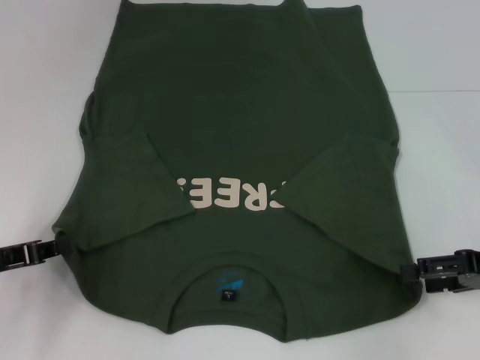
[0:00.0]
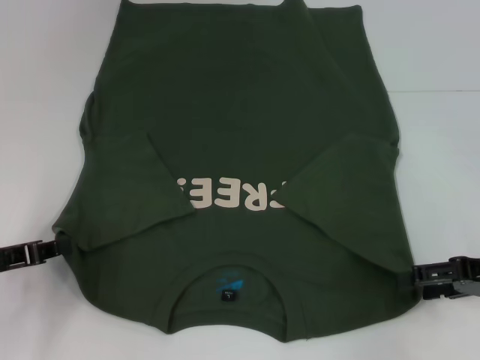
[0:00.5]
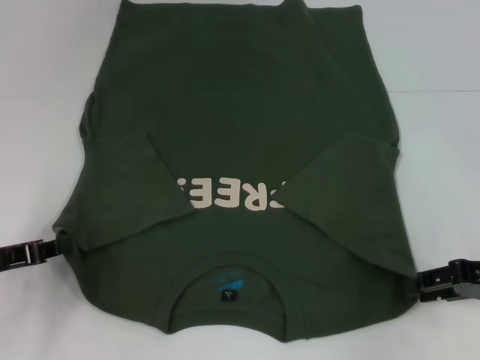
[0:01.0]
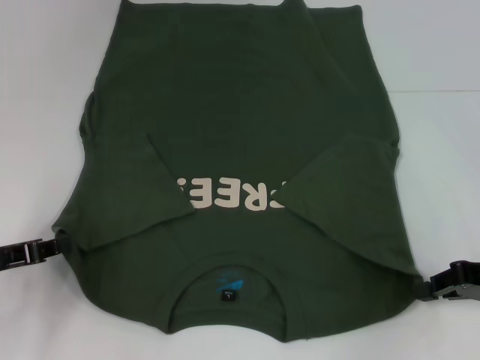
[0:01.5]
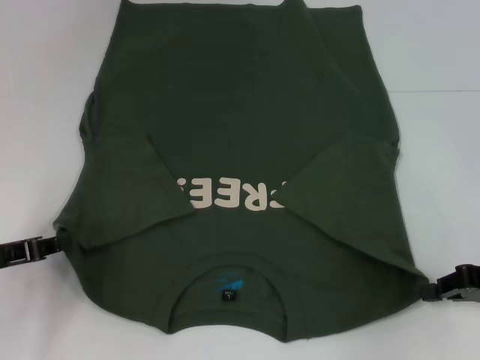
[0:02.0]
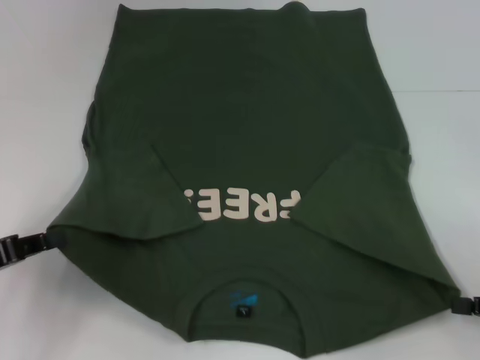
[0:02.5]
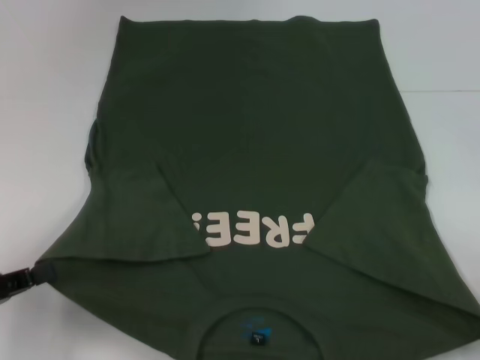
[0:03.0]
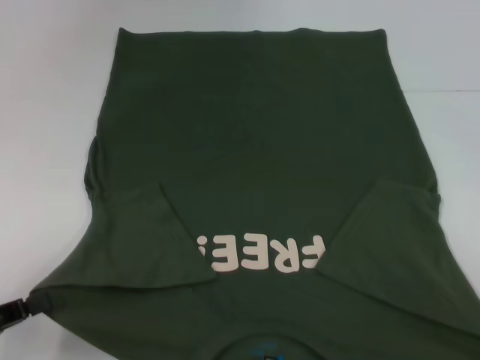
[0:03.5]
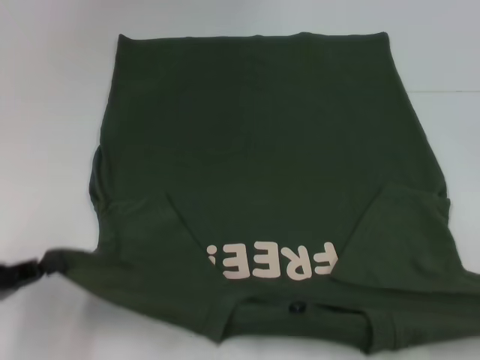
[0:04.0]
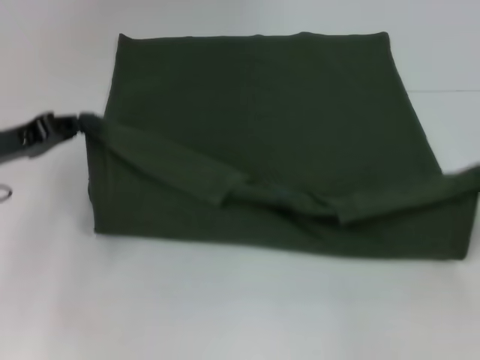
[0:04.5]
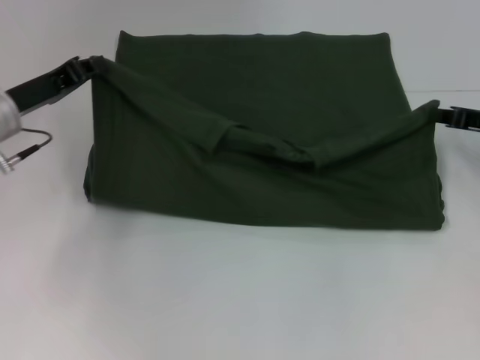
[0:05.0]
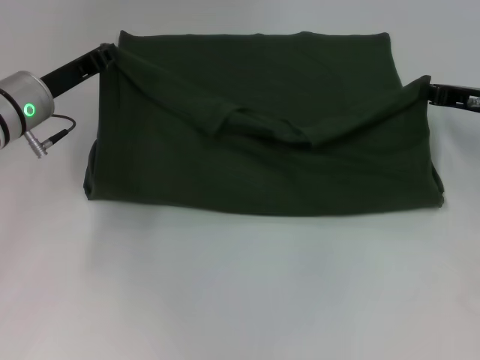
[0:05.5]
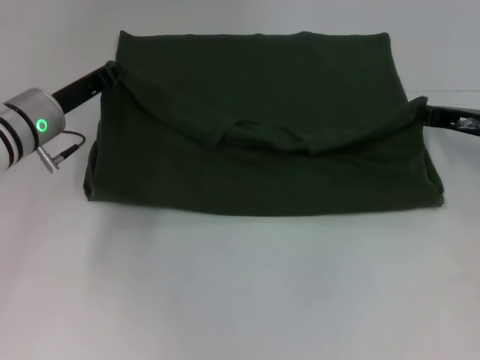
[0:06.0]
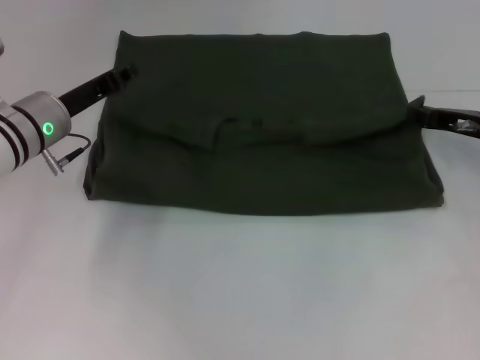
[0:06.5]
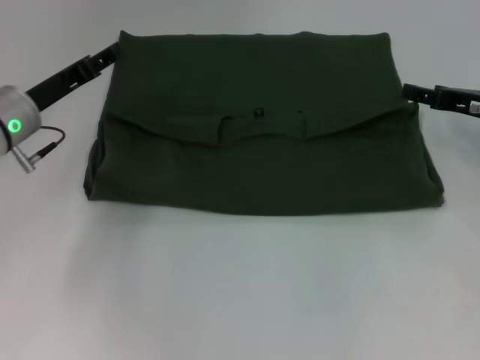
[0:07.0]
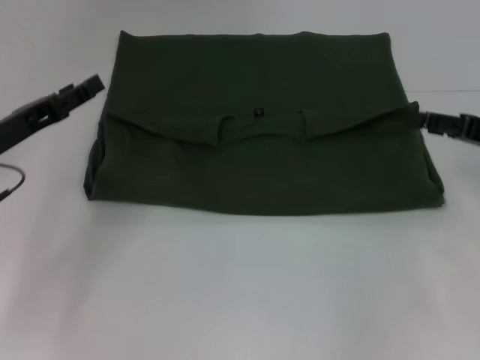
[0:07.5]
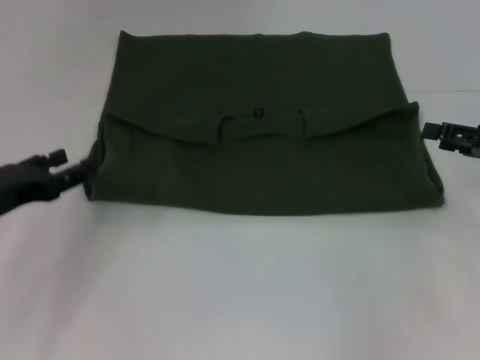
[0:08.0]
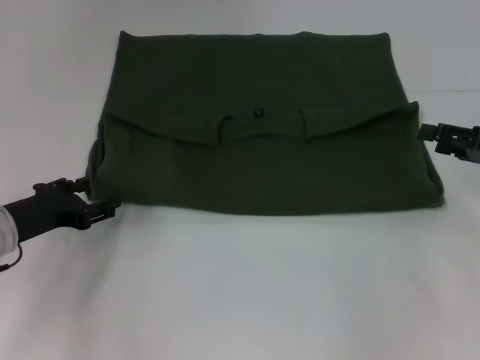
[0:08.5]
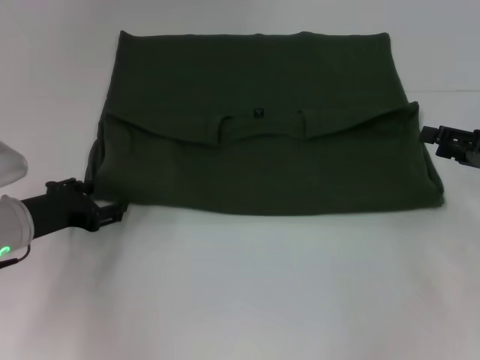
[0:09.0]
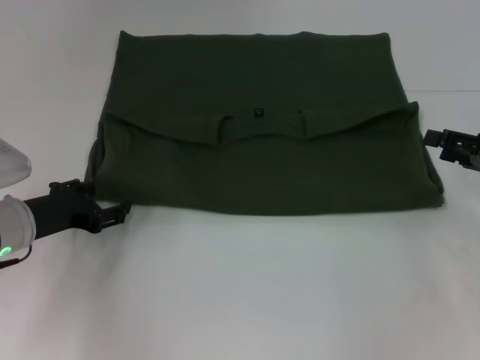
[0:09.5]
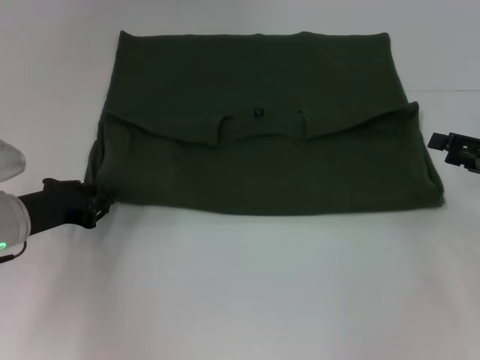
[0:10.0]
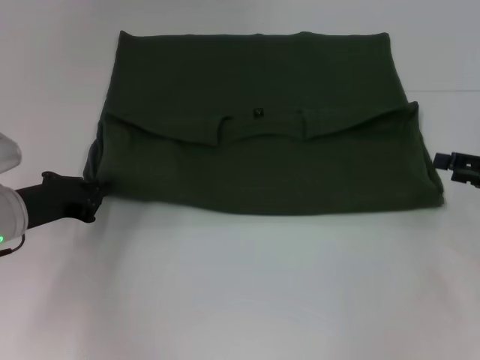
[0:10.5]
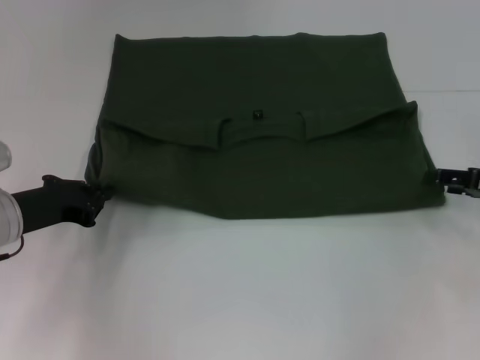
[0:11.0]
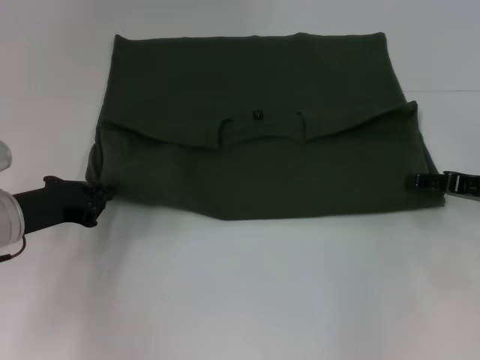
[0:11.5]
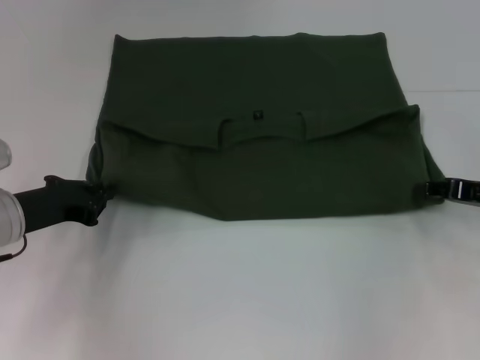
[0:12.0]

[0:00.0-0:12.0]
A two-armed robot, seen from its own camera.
Step, 0:00.0 to 0:02.0: Grab the bottom right corner with your right hand.
Step, 0:02.5 to 0:07.0: Fold the clothes with your left hand.
Step, 0:02.5 to 0:07.0: Fold the clothes with your right hand.
0:00.0 to 0:02.0: The right gripper closes.
0:02.0 to 0:04.0: The right gripper moves backward and to the right, roughly 15 cm. The left gripper goes some 5 cm backward.
0:04.0 to 0:06.0: The left gripper is displaced forward and to the right by approximately 25 cm. The right gripper moves forward and to the left, some 30 cm.
0:06.0 to 0:08.0: The right gripper goes approximately 10 cm backward and to the right, and opens up. The left gripper moves backward and to the left, approximately 15 cm, and opens.
0:08.0 to 0:10.0: The left gripper ends up approximately 5 cm from where it was, and closes.
0:10.0 to 0:12.0: The left gripper closes.

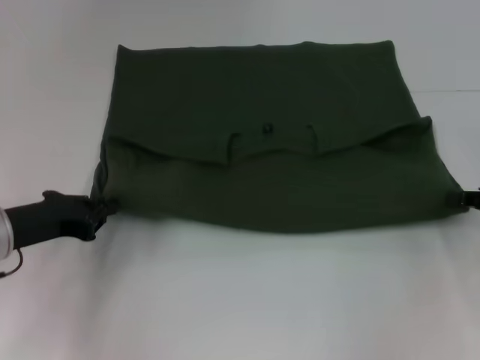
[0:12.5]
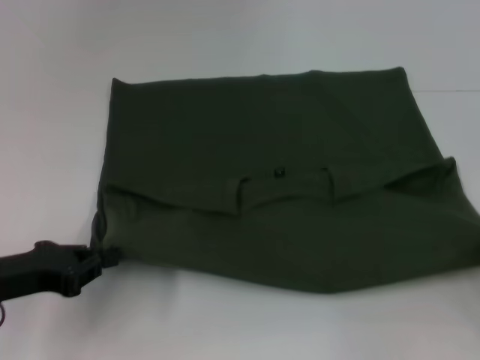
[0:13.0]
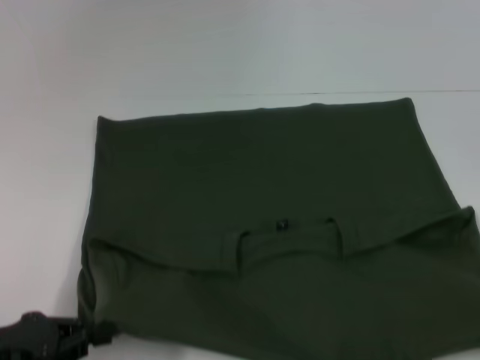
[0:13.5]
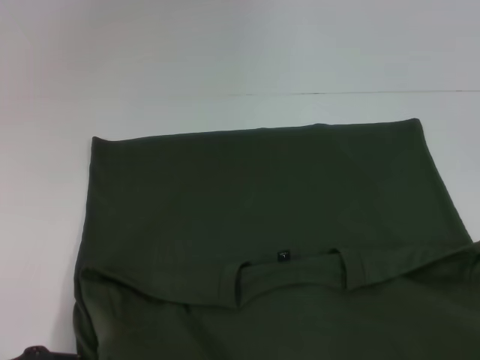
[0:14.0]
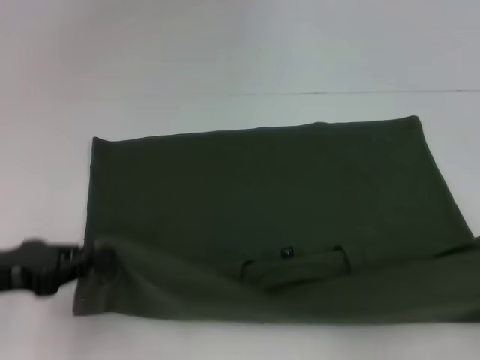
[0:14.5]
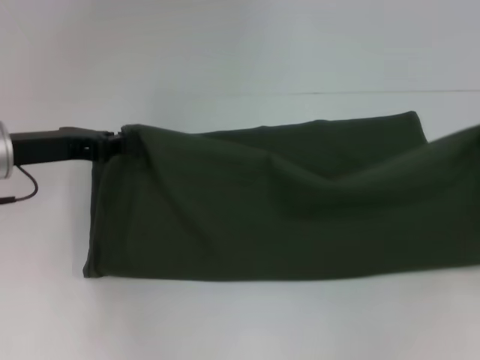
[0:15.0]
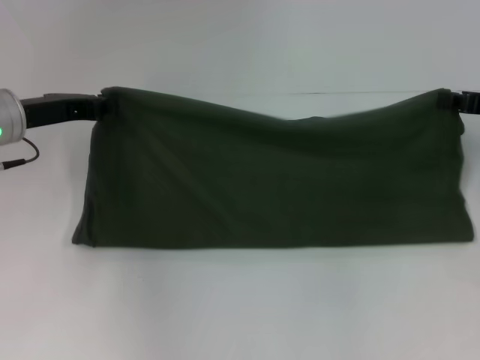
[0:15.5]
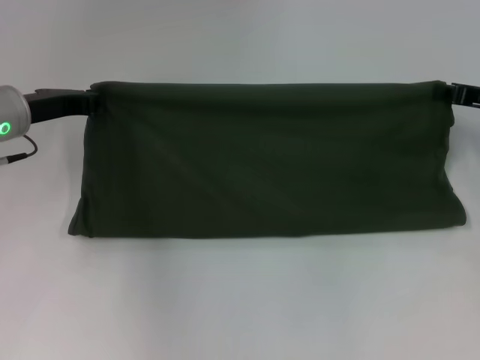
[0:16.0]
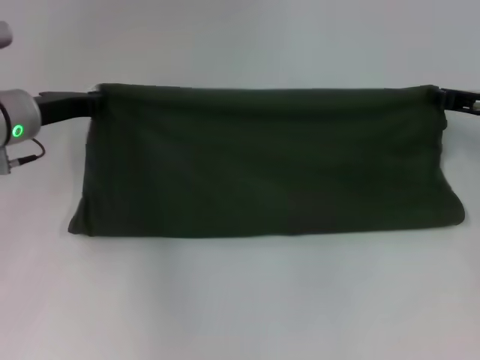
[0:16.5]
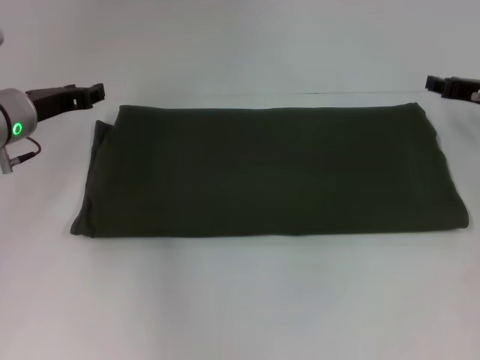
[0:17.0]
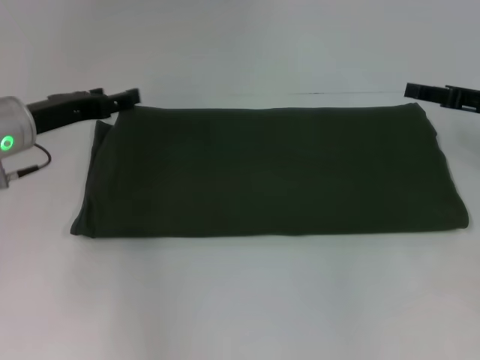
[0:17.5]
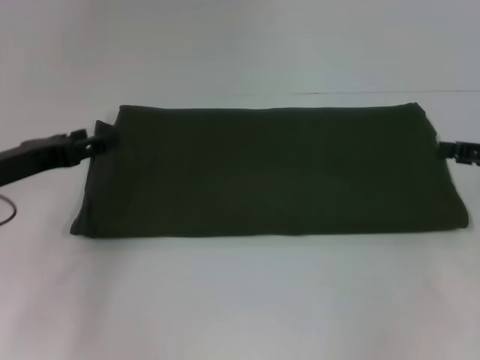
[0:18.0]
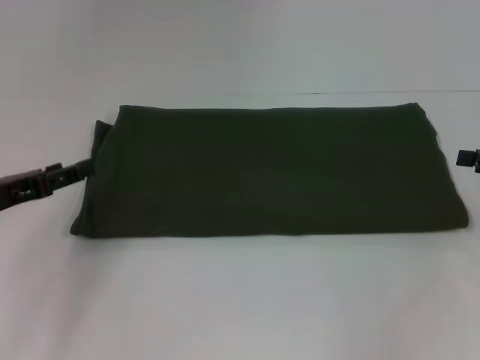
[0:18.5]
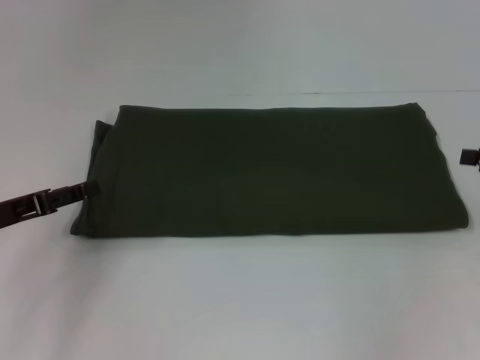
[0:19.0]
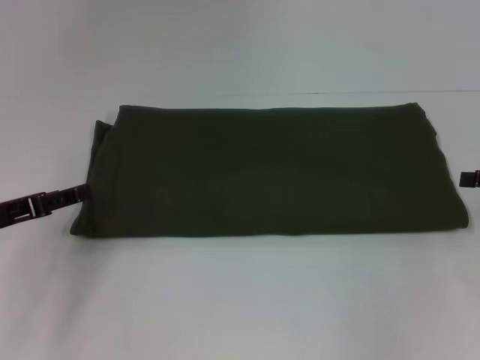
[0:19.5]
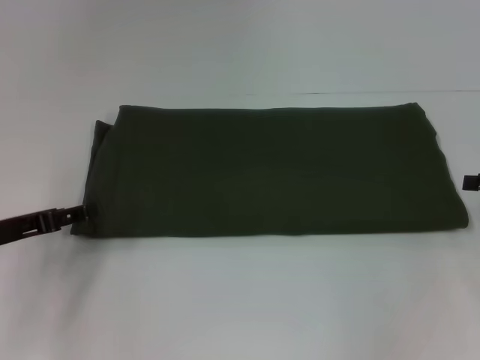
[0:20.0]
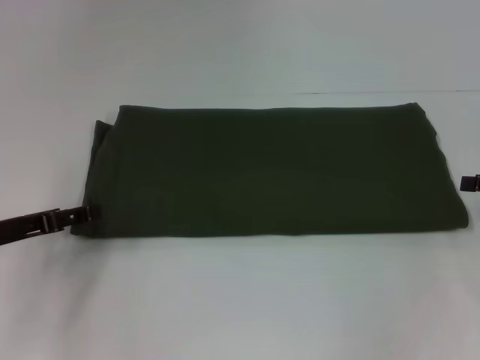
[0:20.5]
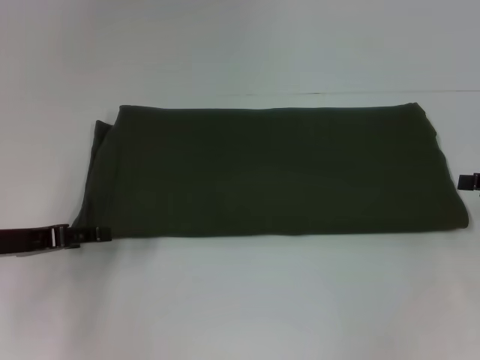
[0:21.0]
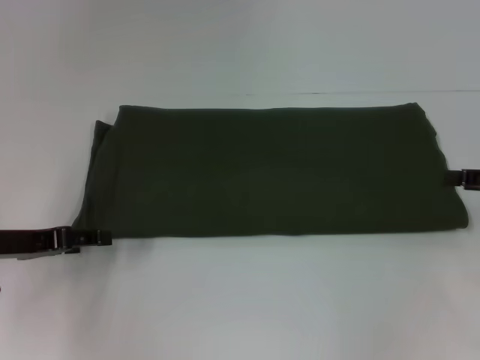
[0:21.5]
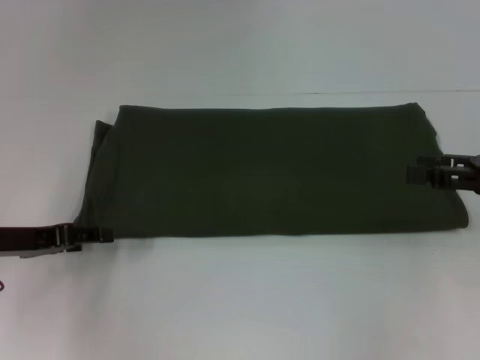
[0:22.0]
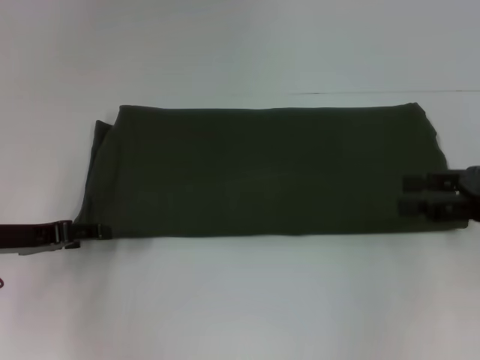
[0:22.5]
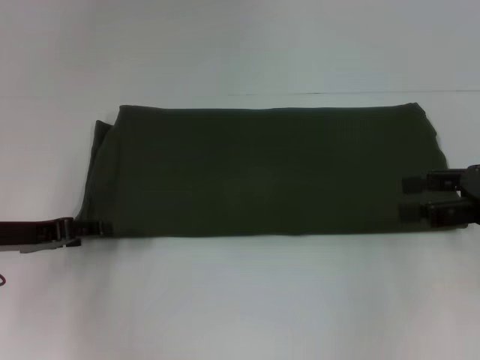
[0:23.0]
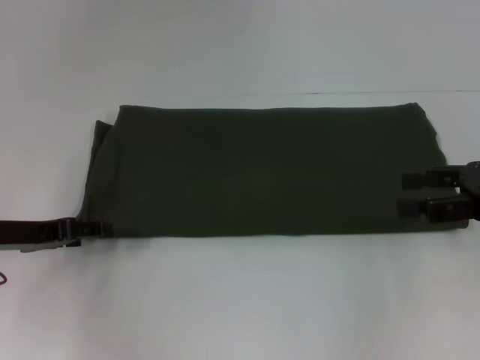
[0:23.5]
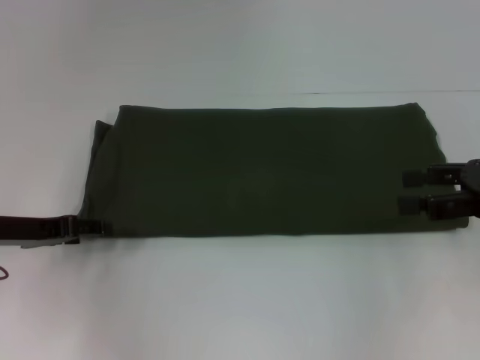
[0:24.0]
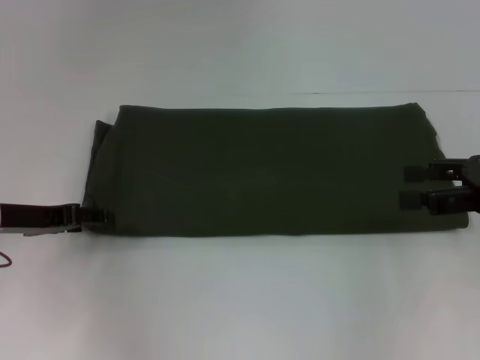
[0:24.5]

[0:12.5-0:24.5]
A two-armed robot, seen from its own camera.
Step, 0:14.0 to 0:16.5: Fold the clothes with your right hand.
0:12.5 to 0:14.5: The left gripper goes approximately 5 cm backward, while the right gripper travels backward and to the right by some 15 cm.
0:14.5 to 0:16.5: The left gripper goes some 20 cm forward; the right gripper is displaced forward and to the left by roughly 25 cm.
0:16.5 to 0:18.5: The right gripper heads backward and to the right, covering roughly 10 cm, and opens its fingers. The left gripper is displaced backward and to the left by some 15 cm, and opens.
0:18.5 to 0:20.5: There are only small adjustments of the grippers.
0:20.5 to 0:22.5: The right gripper is displaced to the left by about 5 cm.
0:22.5 to 0:24.5: The grippers stay close to where they were, moving slightly.

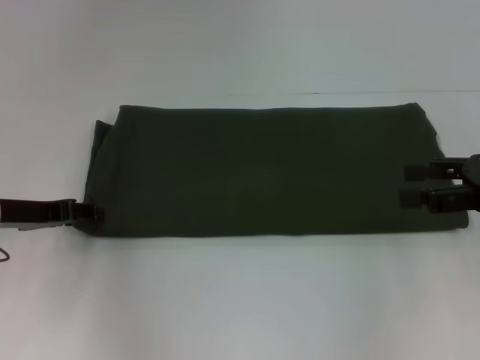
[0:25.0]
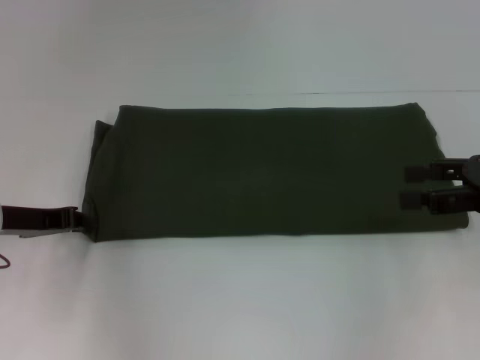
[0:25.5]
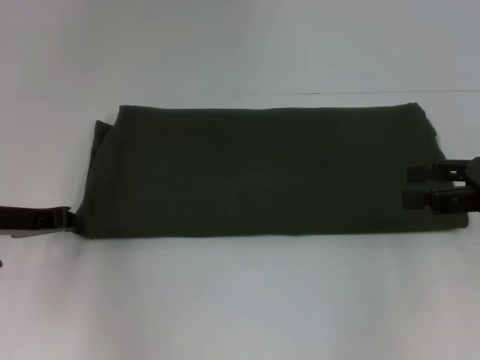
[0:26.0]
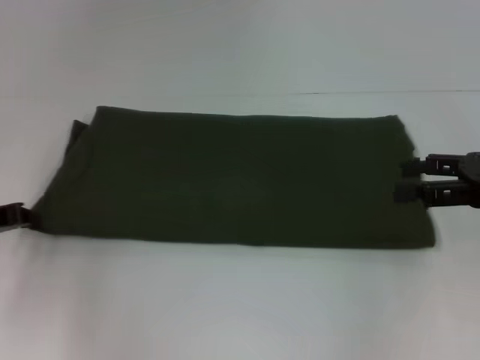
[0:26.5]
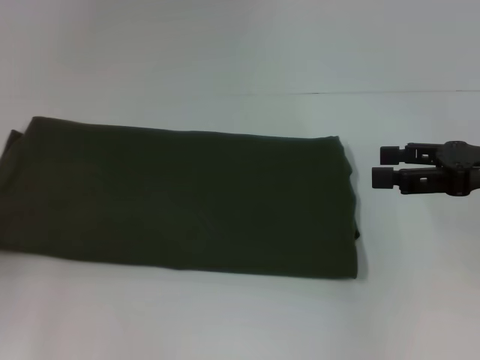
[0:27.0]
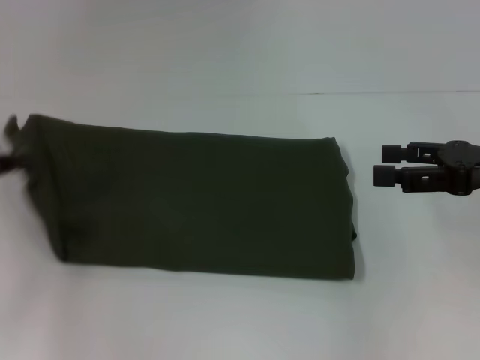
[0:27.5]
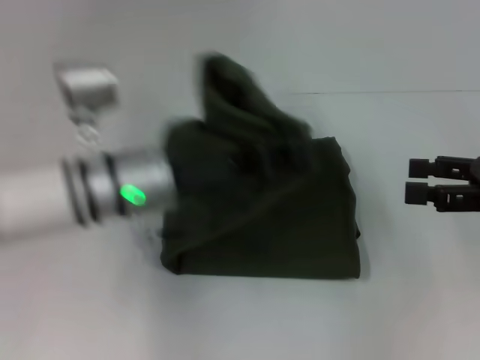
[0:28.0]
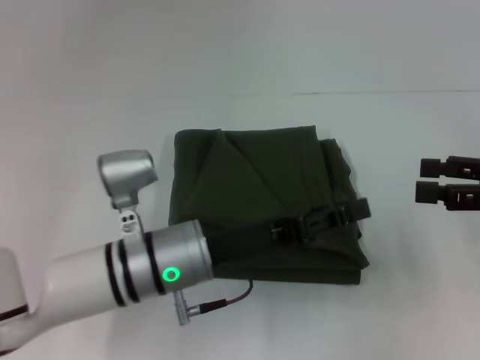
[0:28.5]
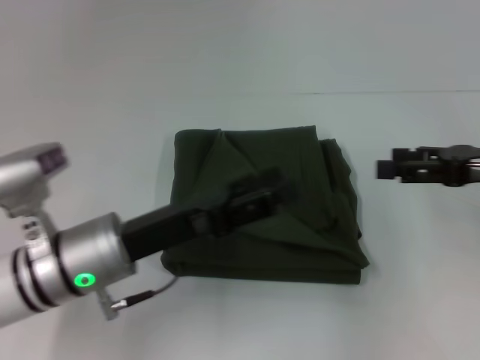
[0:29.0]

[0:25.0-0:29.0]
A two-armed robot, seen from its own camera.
Step, 0:25.0 to 0:28.5: Fold the clothes with your left hand.
0:25.0 to 0:27.0: The left gripper moves to the left and backward, roughly 10 cm, and closes up.
0:27.0 to 0:29.0: The left gripper goes some 25 cm to the right, and opens its fingers.
